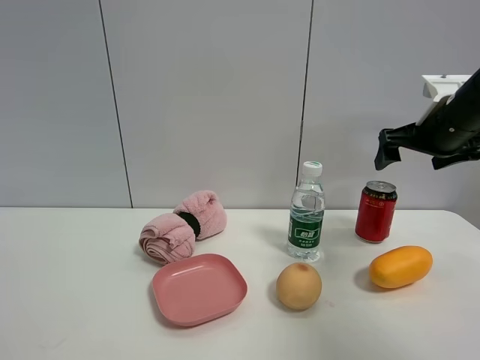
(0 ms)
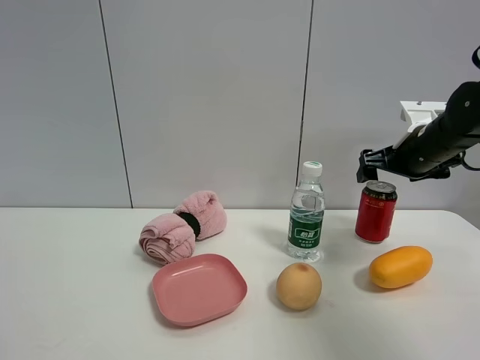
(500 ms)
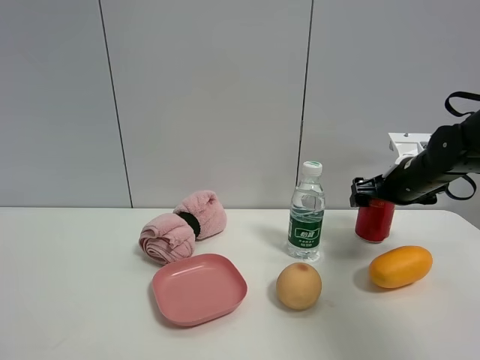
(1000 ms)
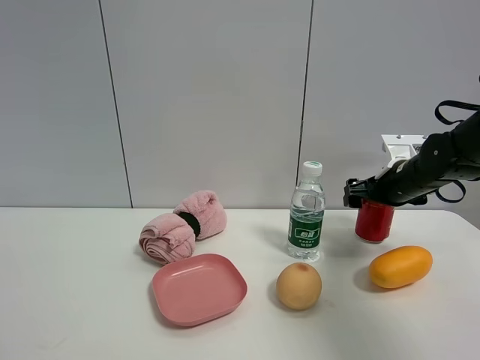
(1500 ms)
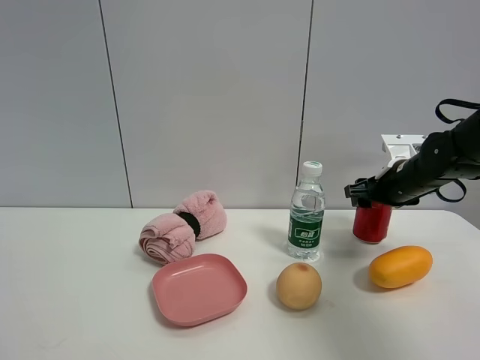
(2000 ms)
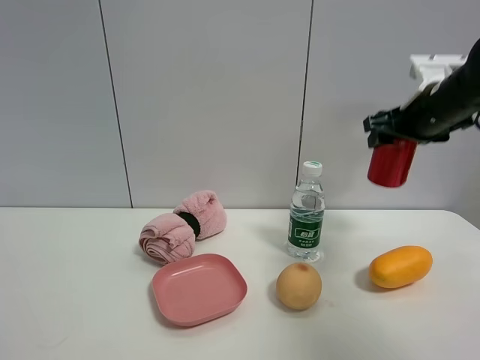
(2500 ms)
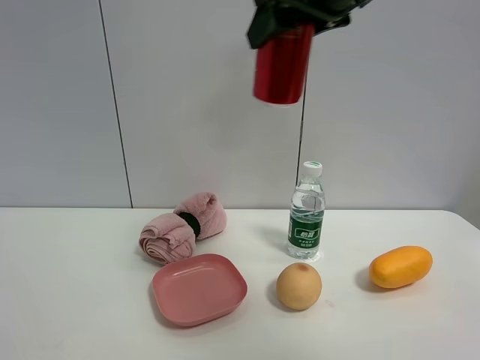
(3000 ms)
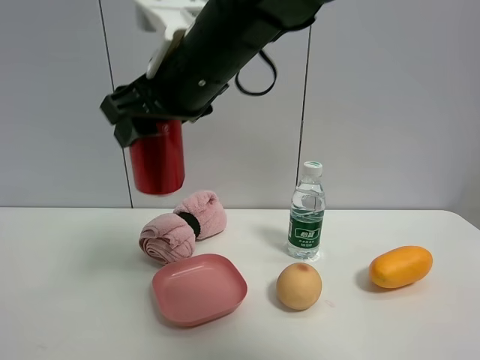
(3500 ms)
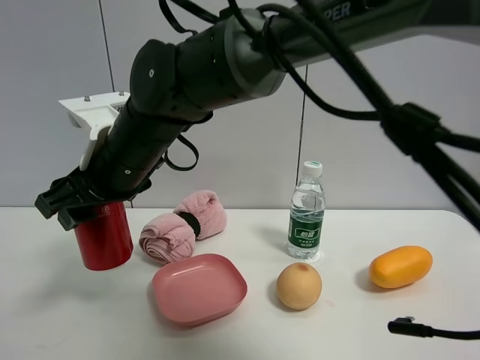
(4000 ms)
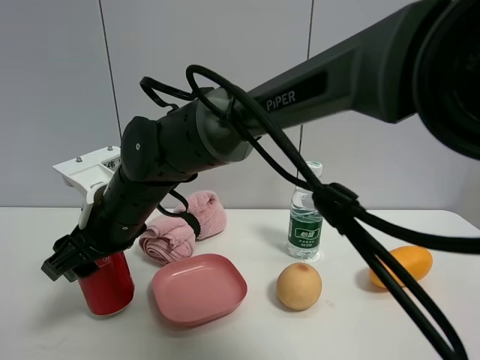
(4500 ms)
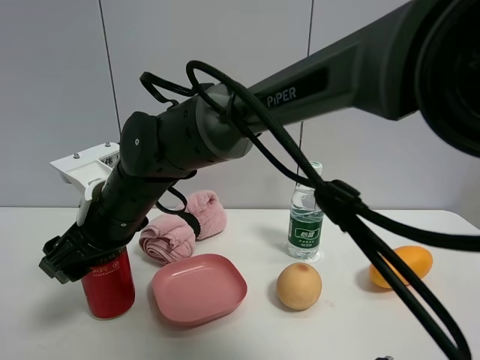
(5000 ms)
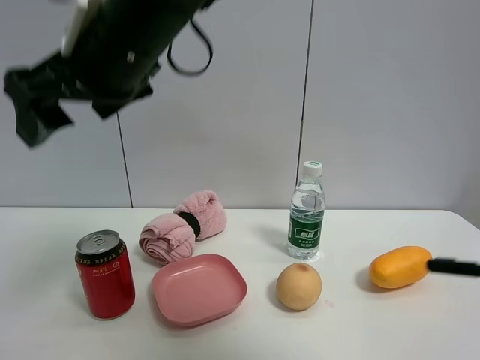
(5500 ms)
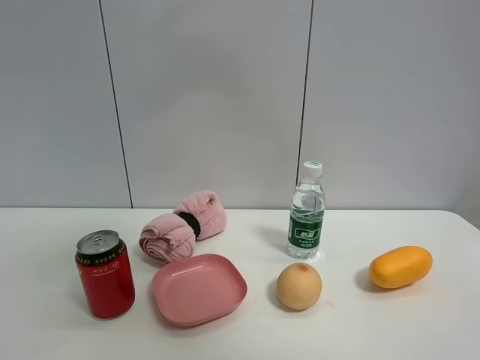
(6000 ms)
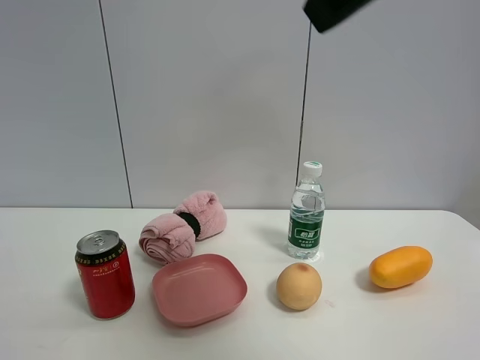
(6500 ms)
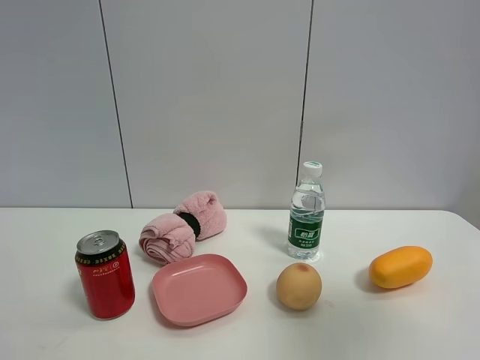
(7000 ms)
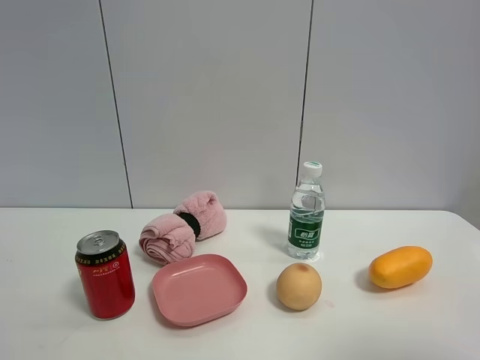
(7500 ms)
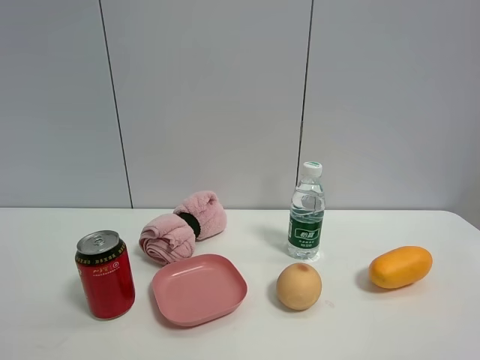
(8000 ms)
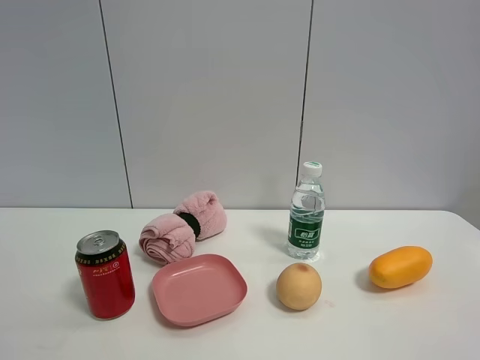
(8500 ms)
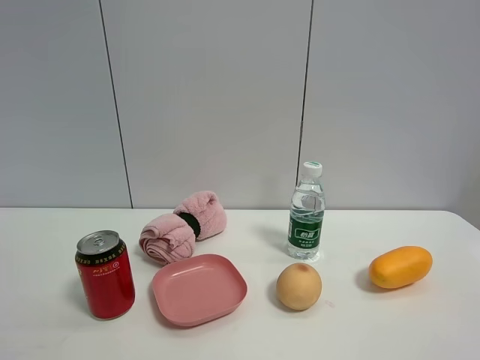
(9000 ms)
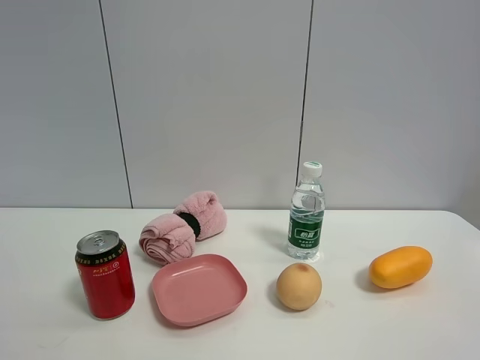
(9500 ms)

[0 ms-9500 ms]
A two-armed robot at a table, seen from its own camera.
Task of the whole recording: the gripper move the object.
Step, 2000 ms to 5000 ms: Place the Jia Duo Bao on the table with the right gripper.
0 ms to 2000 ms: The right gripper travels downward by approximately 10 cm, and closes.
2000 ms to 4000 ms: The right gripper travels to the left by approximately 40 cm.
4000 ms to 5500 ms: The right gripper travels upward by some 15 cm, and opens its fingers.
5500 ms to 7500 ms: The right gripper is displaced to the right and backward by approximately 40 cm.

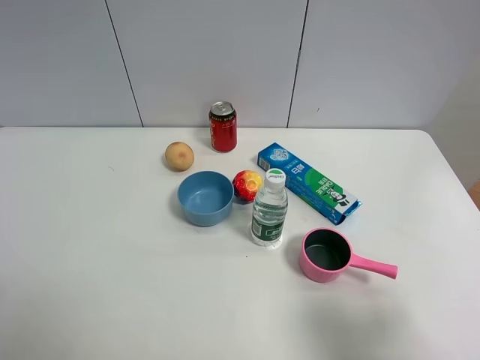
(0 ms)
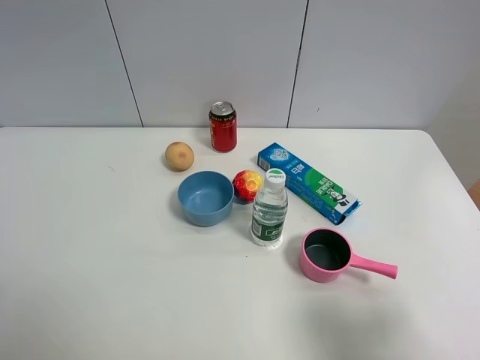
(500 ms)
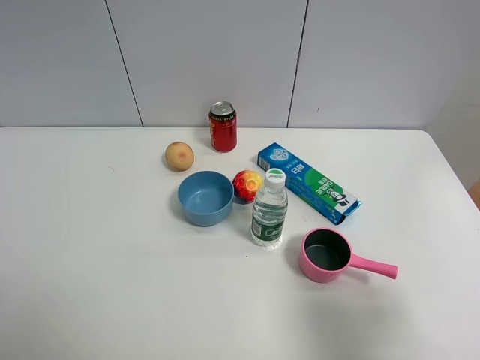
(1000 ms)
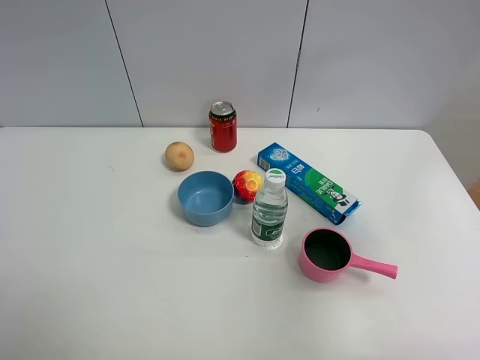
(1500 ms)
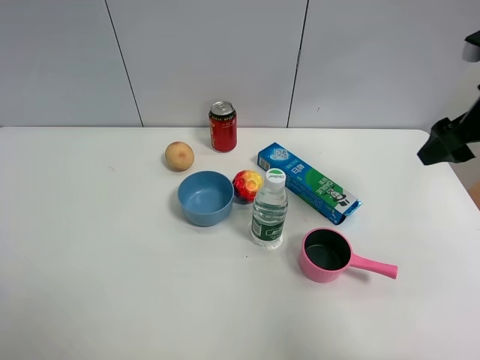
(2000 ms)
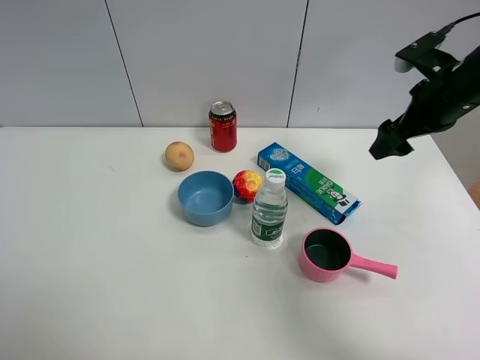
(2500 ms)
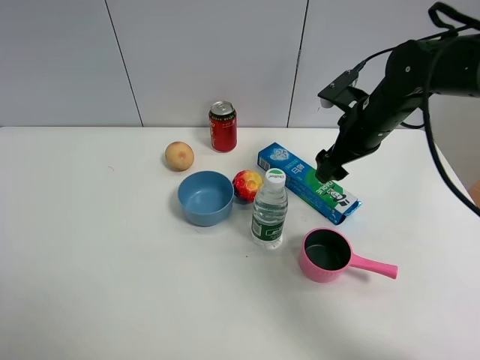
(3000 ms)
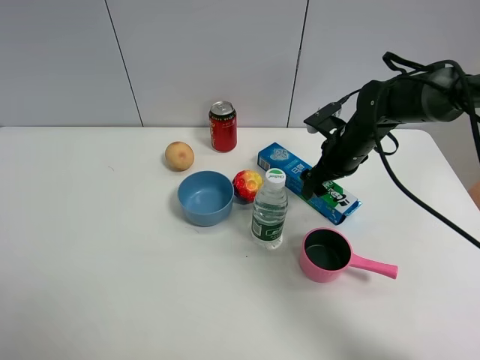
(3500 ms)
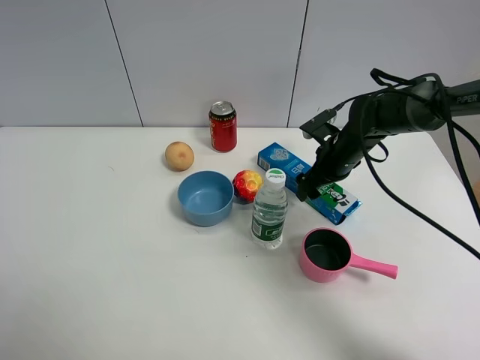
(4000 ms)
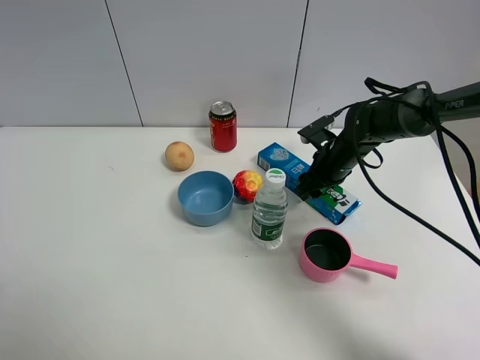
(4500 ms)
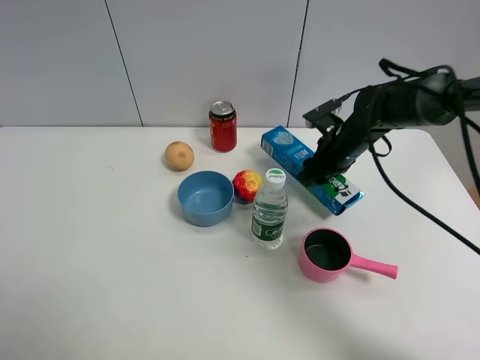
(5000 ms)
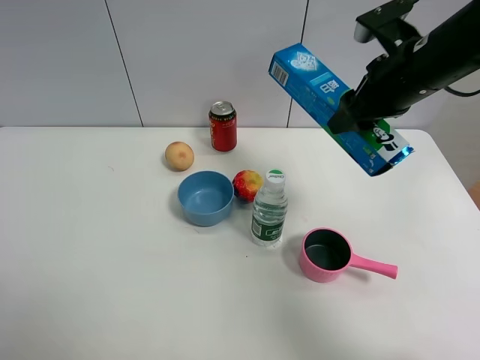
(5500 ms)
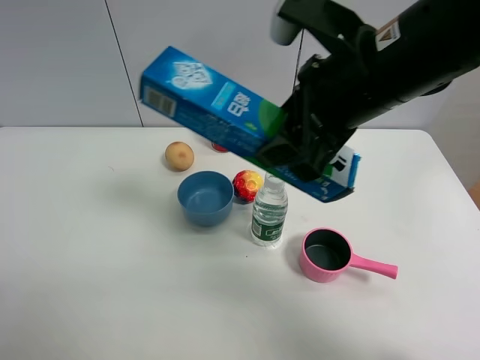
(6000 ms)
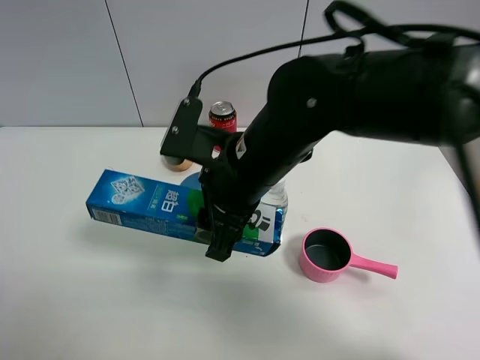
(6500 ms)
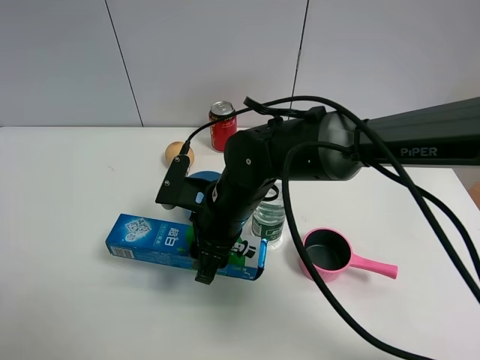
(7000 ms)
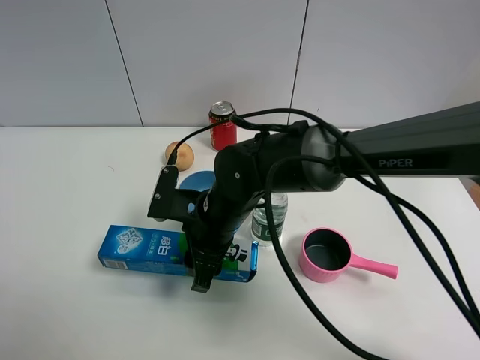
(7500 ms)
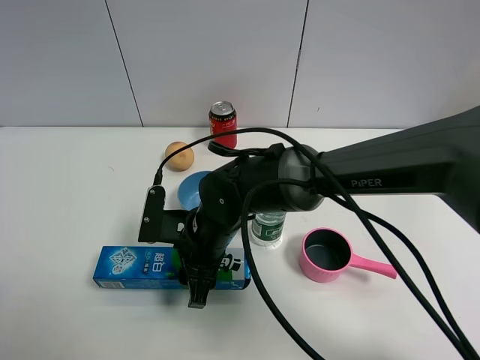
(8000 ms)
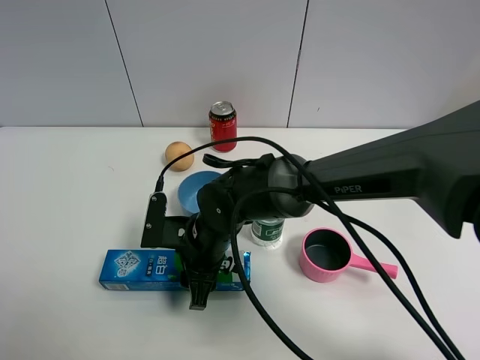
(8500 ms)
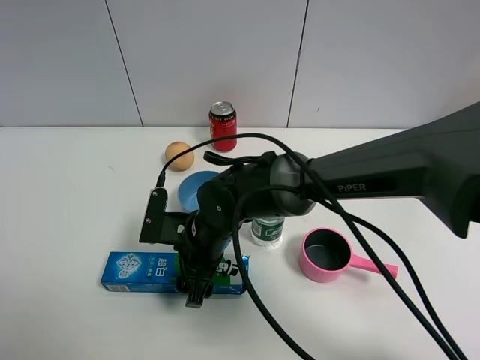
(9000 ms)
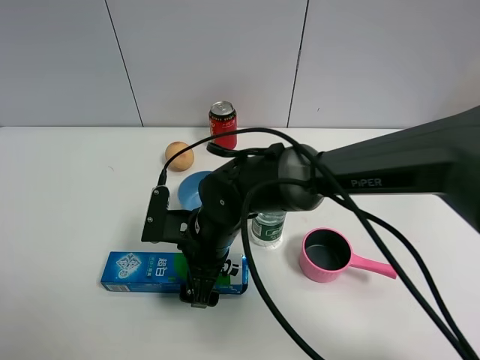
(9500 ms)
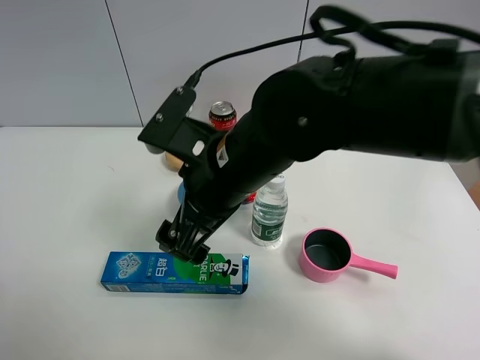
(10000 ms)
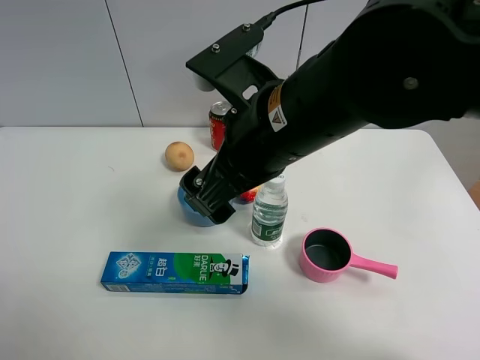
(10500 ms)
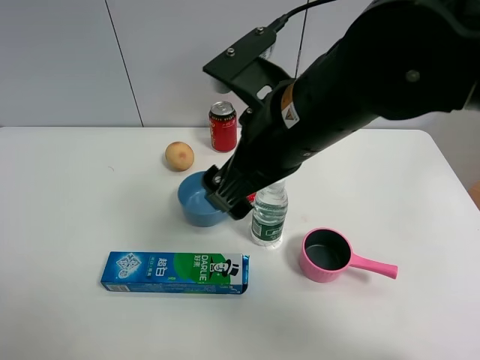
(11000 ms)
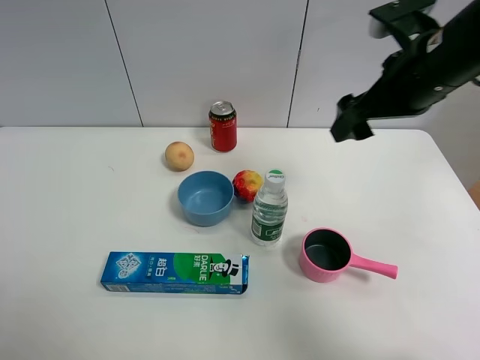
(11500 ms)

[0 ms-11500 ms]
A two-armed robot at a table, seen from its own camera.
Task of the whole recording: the gripper move the object.
Step, 0 ms to 4500 ms: Grasp the toothpaste with the right gripper.
Step, 5000 ms to 10000 ms: Place the toothpaste on the table with the right gripper.
0 ms to 2000 ms: The right gripper is displaced forward by about 30 cm.
2000 ms to 4000 ms: The right gripper heads downward, to the left and forward, covering about 25 cm.
4000 ms to 6000 ms: The right gripper heads upward and backward, covering about 30 cm, and closes its fingers.
6000 ms to 7500 ms: The right gripper shifts approximately 25 cm downward and to the left.
7500 ms to 9500 ms: The right gripper opens its fingers.
9500 ms to 11500 ms: The right gripper travels to the right and upward by approximately 30 cm.

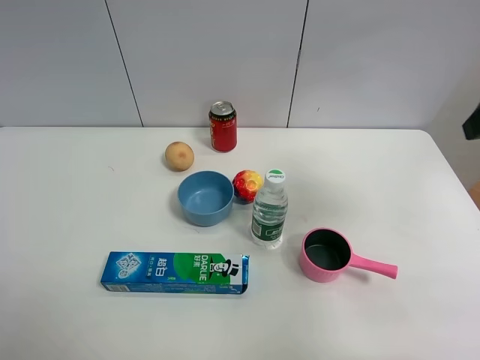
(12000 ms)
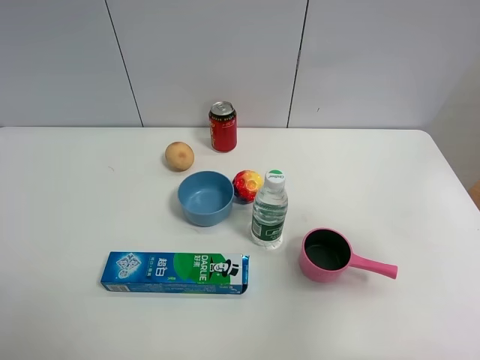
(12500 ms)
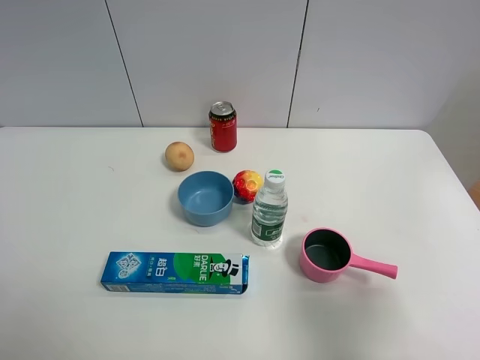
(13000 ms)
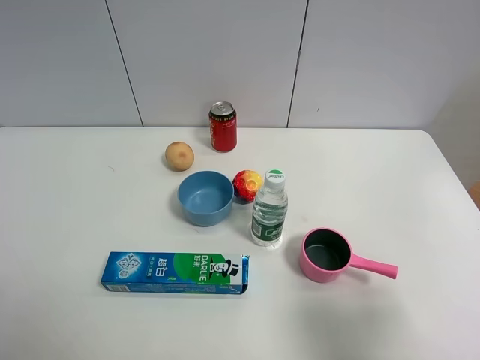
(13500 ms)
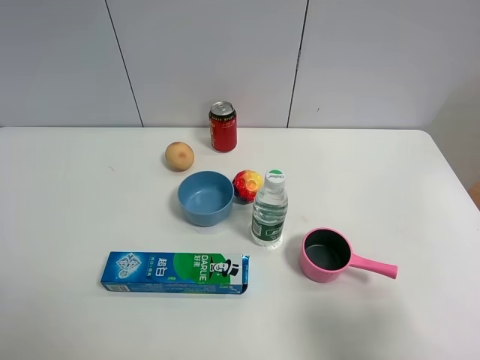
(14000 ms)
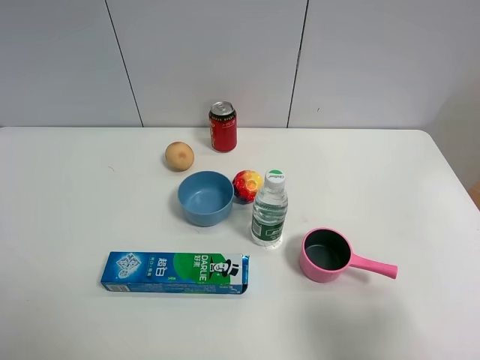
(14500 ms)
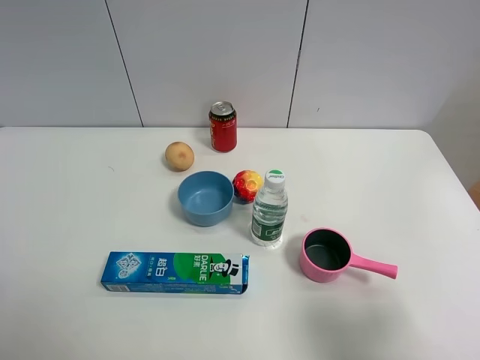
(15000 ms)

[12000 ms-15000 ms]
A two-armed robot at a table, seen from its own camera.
Task of the whole recording: the gripper move the object.
12000 ms to 13500 ms: The right gripper travels backward and downward by approximately 25 cm.
13500 ms to 15000 ms: Neither gripper changes place.

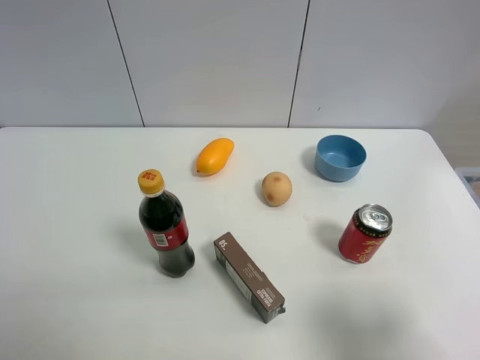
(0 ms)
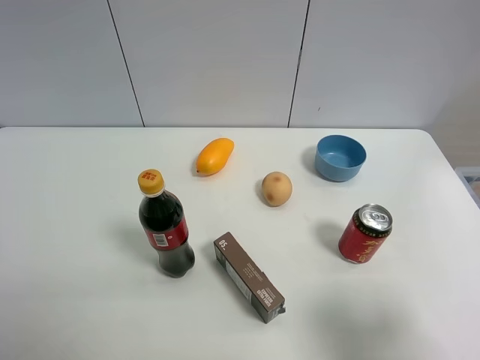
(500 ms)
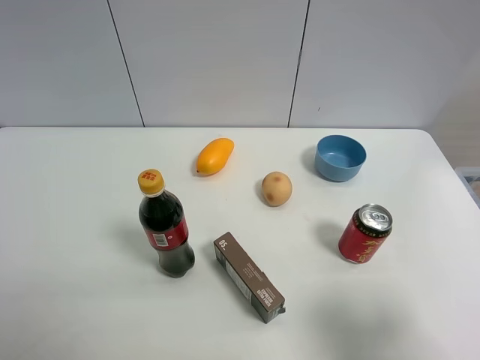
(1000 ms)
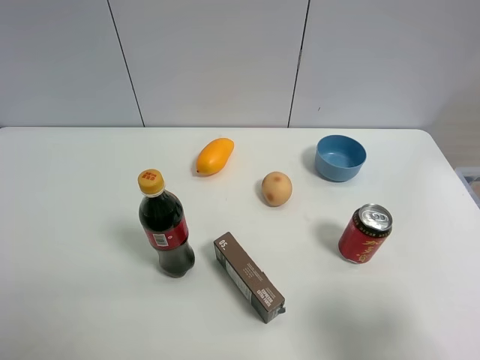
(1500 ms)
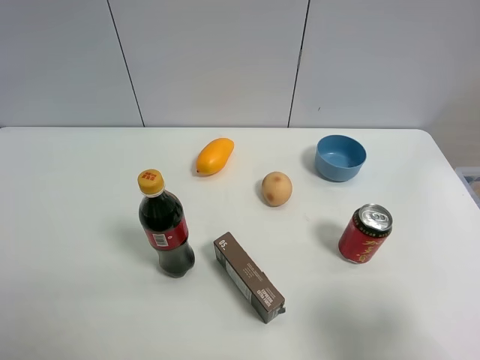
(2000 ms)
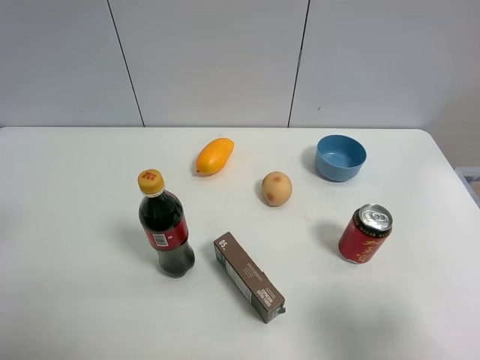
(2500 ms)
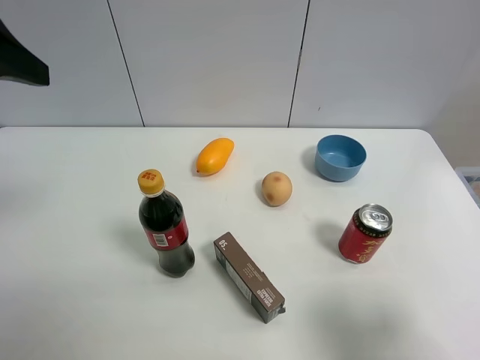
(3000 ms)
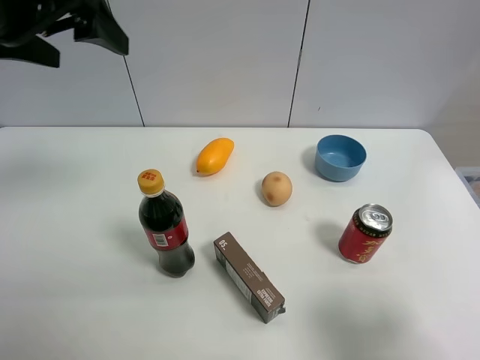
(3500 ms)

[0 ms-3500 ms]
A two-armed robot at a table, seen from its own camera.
Task of the whole recording: the gripper move the object.
2000 ms to 3500 ms: The left gripper goes some 25 cm forward and to the right.
